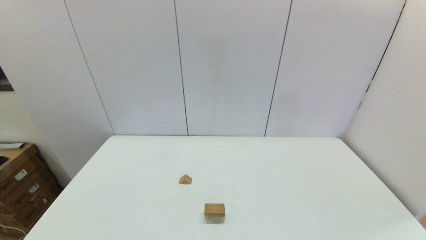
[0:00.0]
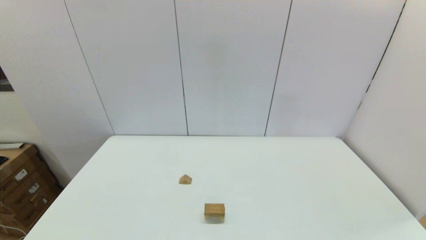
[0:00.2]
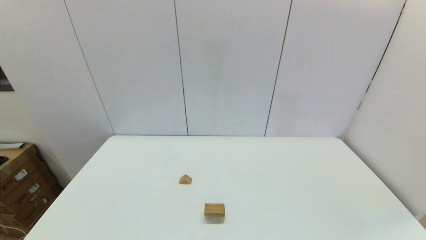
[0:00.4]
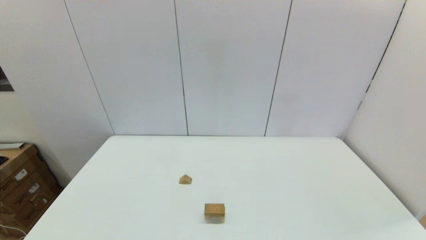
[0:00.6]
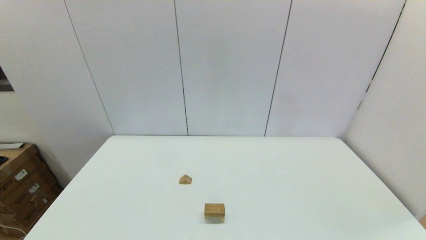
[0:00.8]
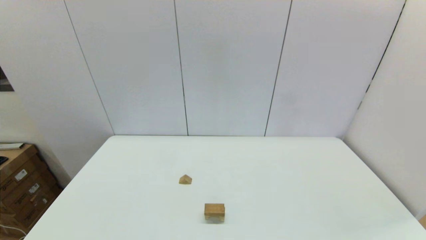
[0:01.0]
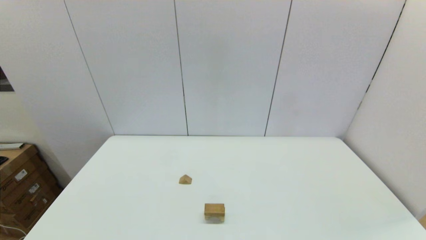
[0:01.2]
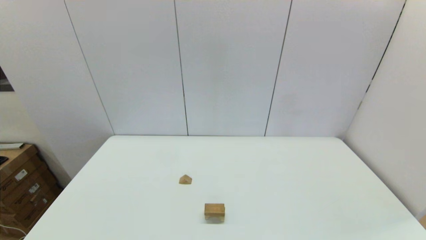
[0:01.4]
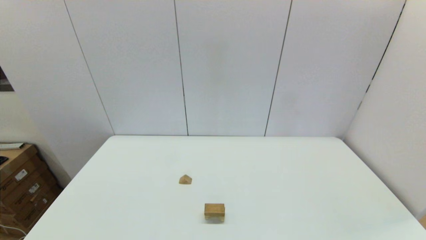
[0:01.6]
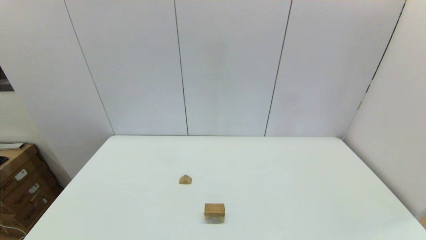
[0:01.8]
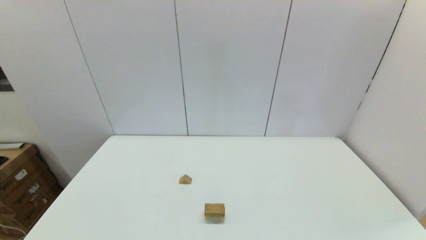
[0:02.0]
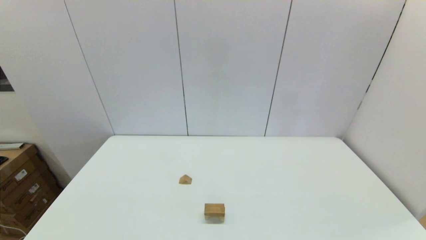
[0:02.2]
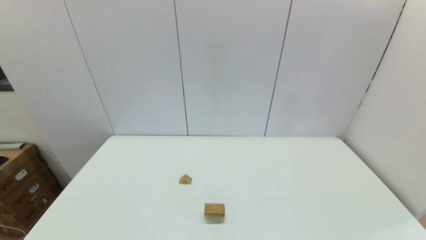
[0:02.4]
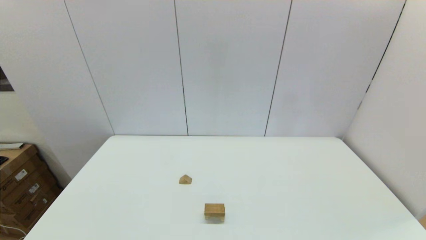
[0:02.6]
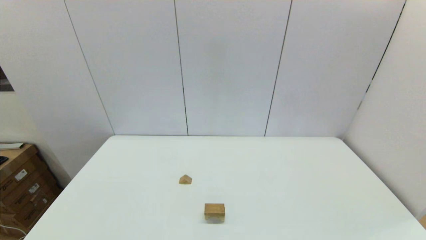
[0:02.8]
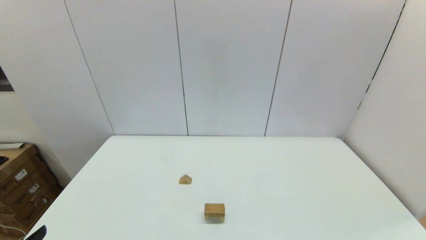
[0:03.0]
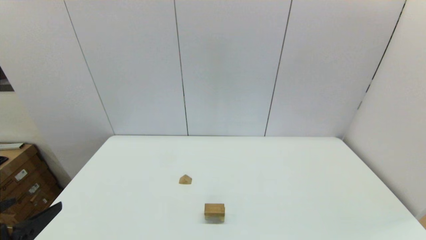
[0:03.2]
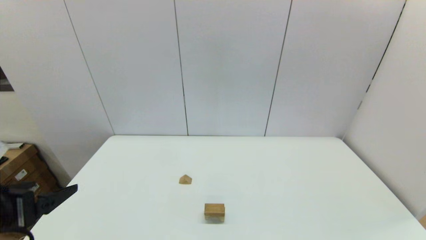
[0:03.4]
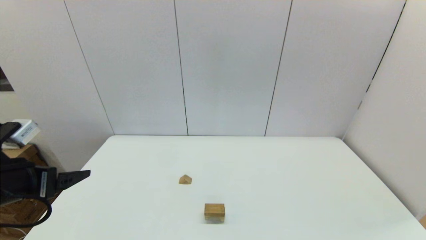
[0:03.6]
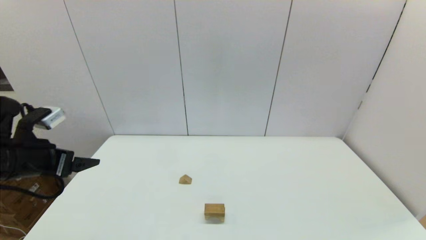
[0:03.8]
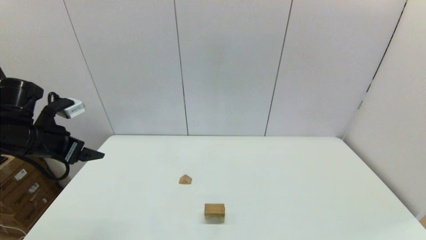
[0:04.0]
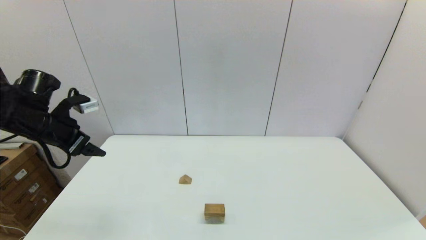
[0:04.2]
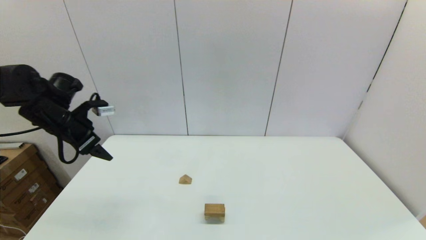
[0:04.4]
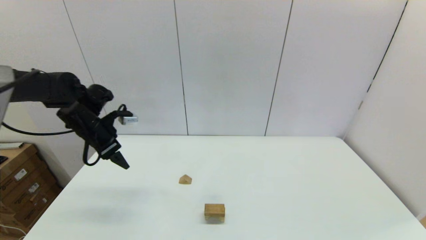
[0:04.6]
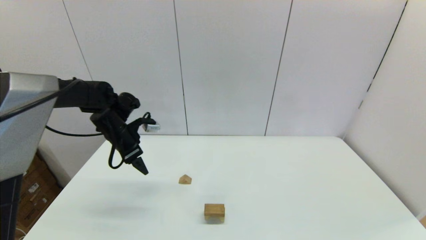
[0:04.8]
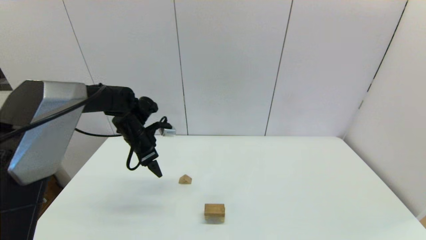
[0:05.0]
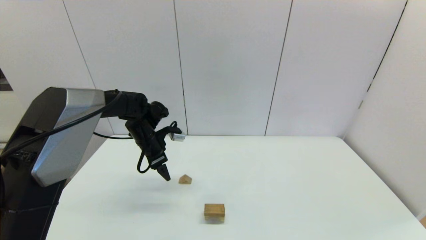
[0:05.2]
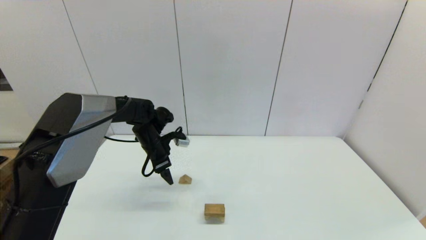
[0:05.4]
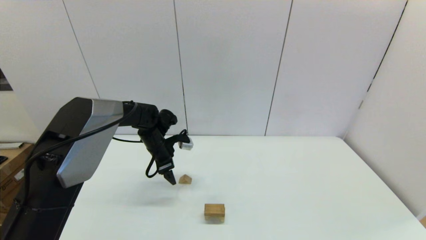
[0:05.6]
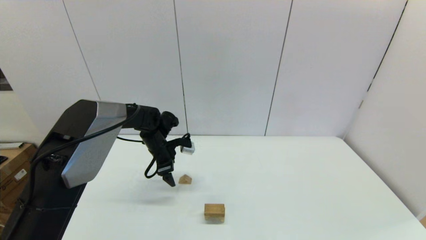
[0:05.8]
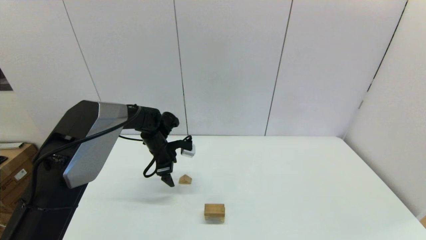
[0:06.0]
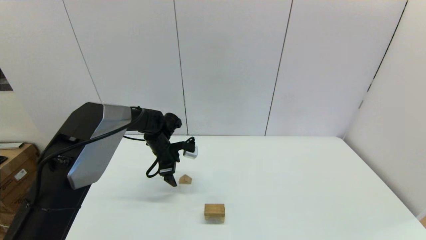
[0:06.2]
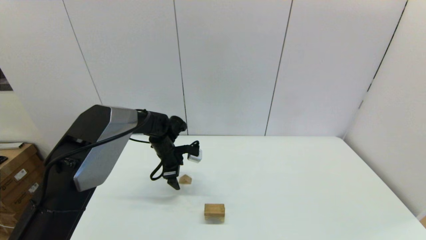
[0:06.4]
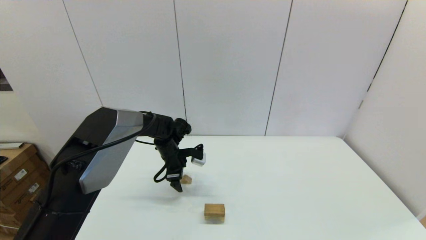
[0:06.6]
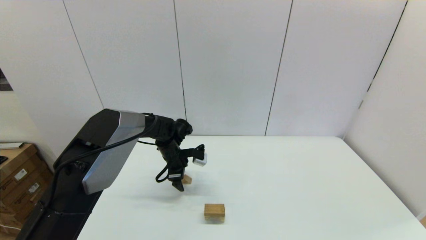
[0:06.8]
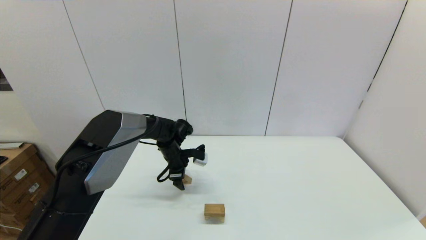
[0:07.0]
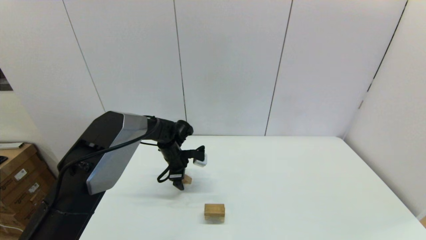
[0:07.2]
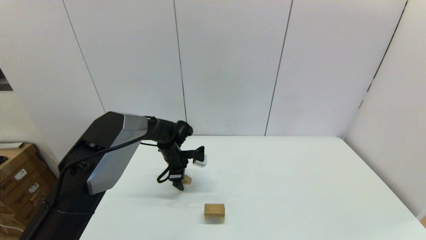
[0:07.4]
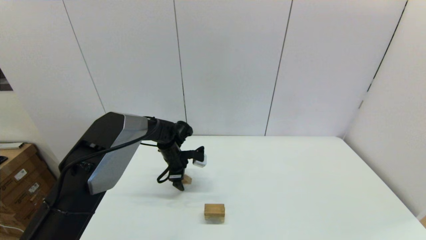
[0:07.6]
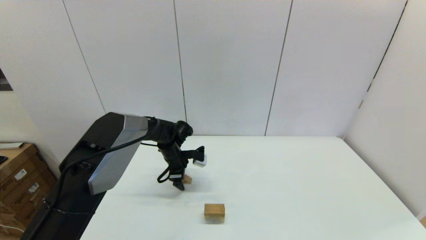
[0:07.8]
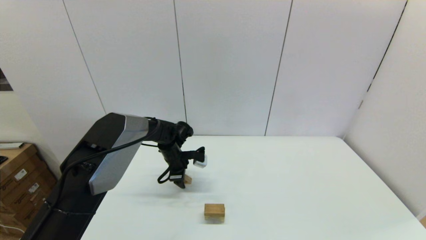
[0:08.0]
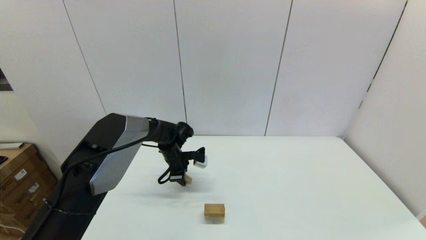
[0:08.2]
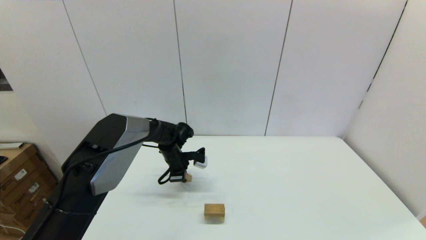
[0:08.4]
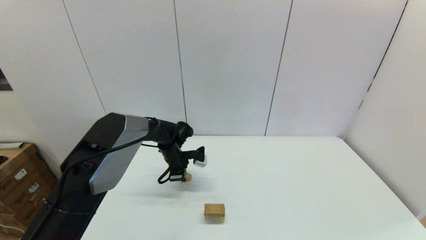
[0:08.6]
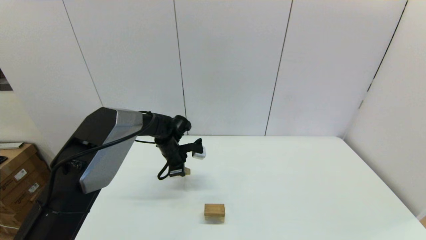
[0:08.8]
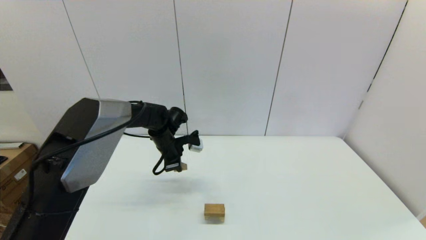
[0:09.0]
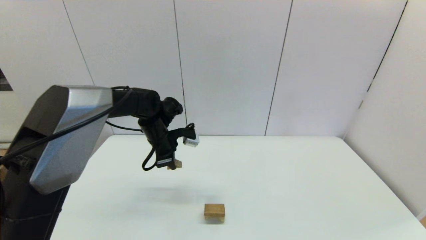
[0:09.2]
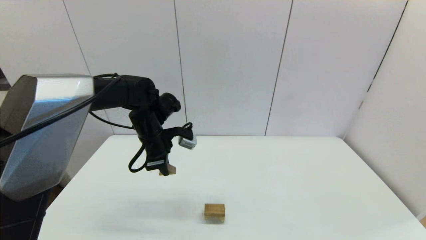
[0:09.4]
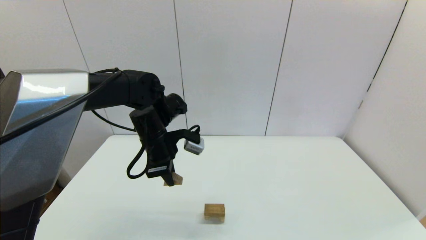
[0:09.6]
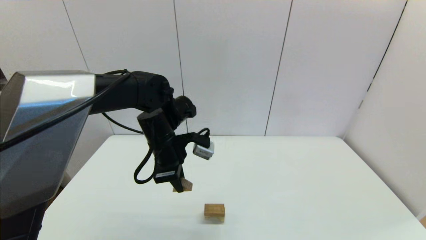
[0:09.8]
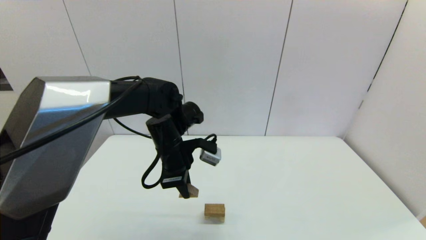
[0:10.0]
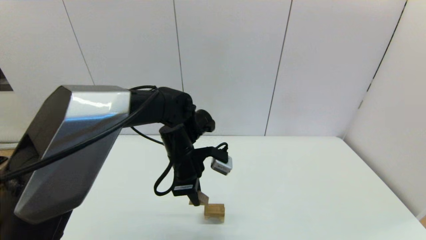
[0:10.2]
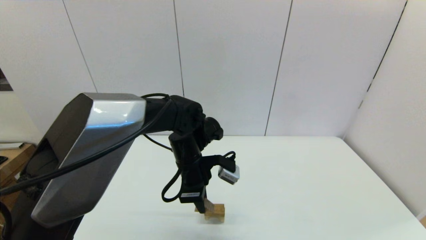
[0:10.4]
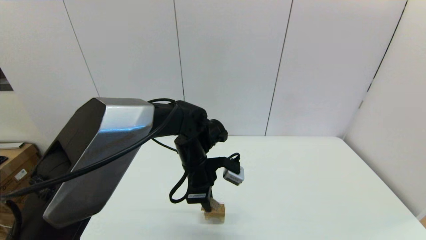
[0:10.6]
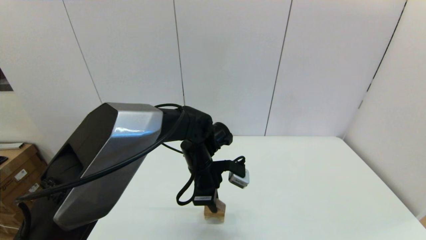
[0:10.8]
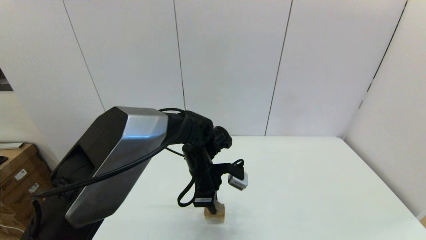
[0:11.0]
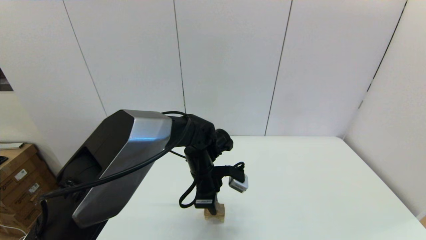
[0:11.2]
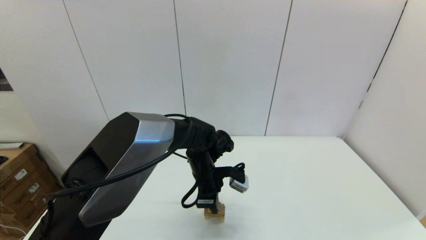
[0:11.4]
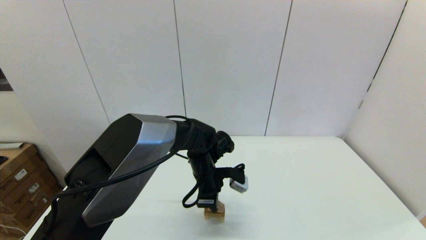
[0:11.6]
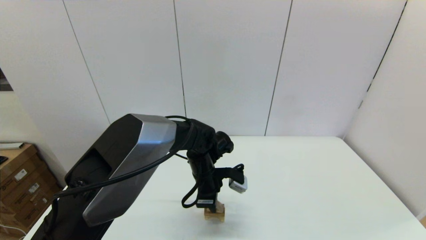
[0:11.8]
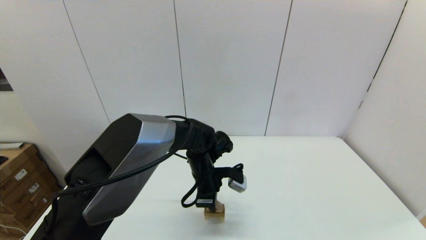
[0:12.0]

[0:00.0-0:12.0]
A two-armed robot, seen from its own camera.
Task of the whole recording: place the arched building blocks in the center of the table, set up the rectangular building blocks, and then set up the triangular building blocks.
Step, 0:00.0 to 0:08.4: Grasp the triangle-shaped block with the left gripper.
0:03.0 to 0:04.4: The left gripper is displaced forward by approximately 30 cm.
0:04.4 to 0:06.0: The left gripper heads to the right, downward and forward, covering roughly 25 cm.
0:06.0 to 0:07.6: The left gripper moves roughly 5 cm.
0:07.6 to 0:09.0: The left gripper travels upward by some 5 cm, and closes its fingers.
0:09.0 to 0:10.4: The left gripper travels backward and to the right by some 15 cm.
0:10.4 to 0:12.0: The left gripper travels downward by approximately 5 cm.

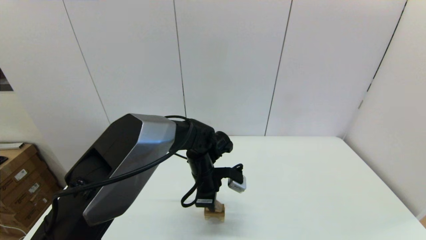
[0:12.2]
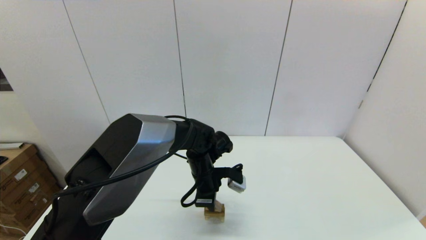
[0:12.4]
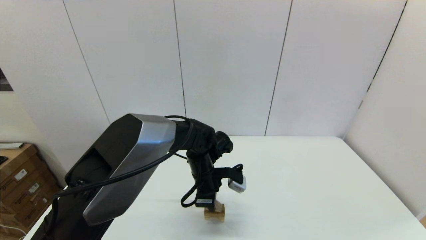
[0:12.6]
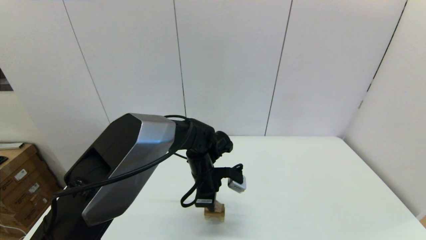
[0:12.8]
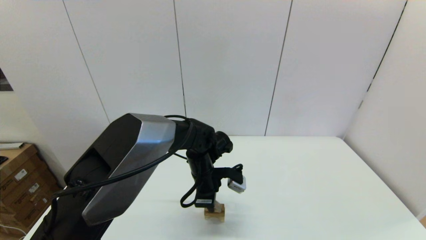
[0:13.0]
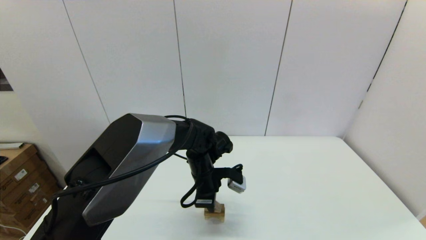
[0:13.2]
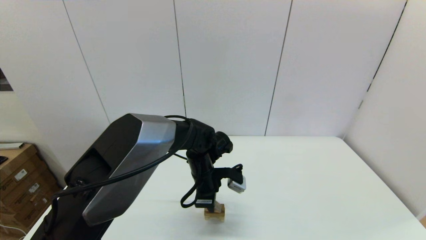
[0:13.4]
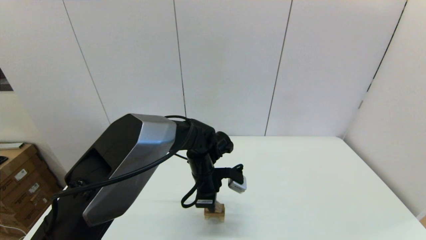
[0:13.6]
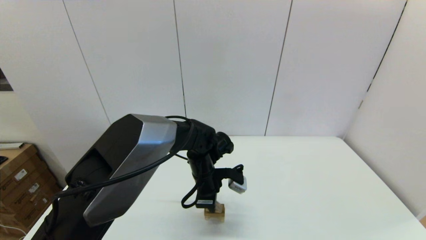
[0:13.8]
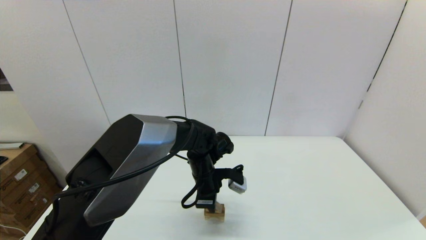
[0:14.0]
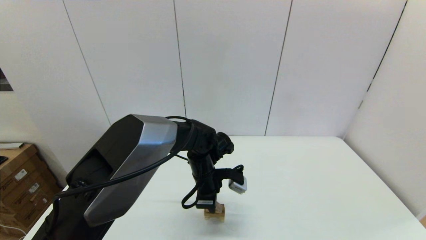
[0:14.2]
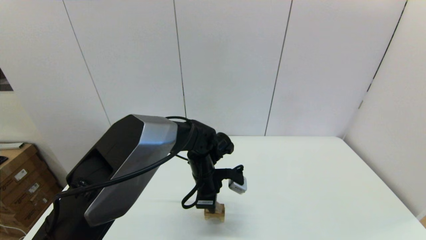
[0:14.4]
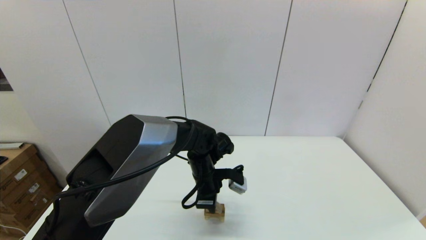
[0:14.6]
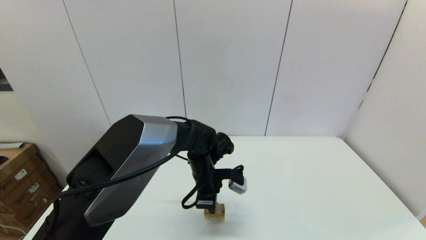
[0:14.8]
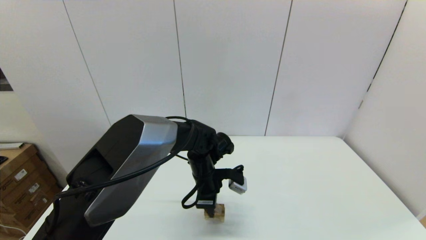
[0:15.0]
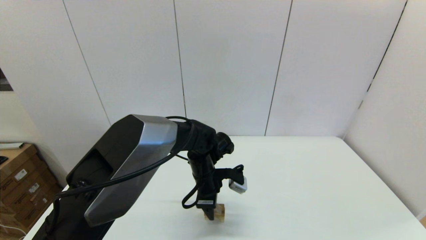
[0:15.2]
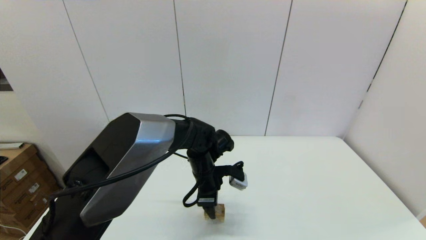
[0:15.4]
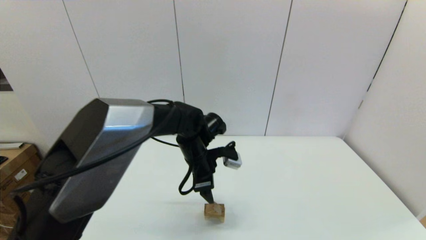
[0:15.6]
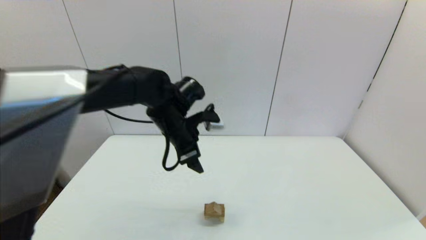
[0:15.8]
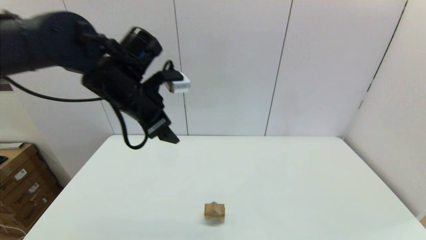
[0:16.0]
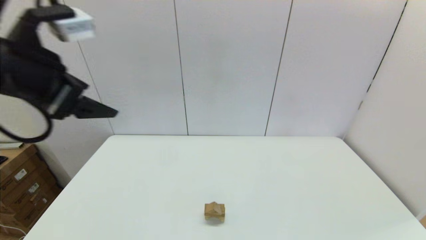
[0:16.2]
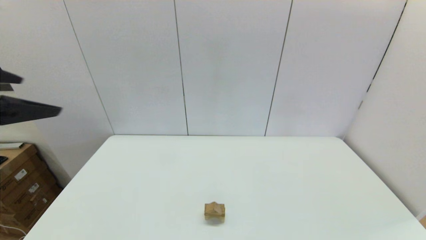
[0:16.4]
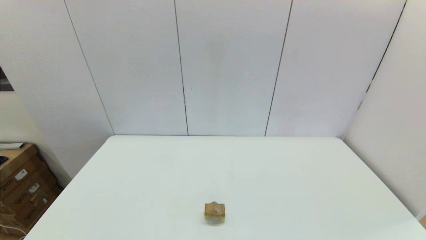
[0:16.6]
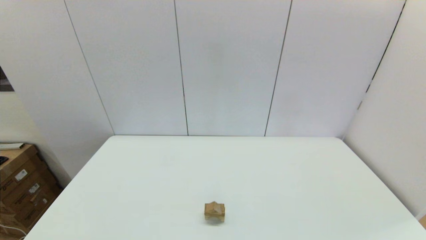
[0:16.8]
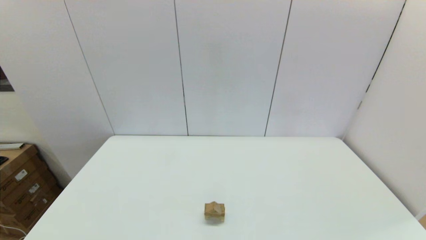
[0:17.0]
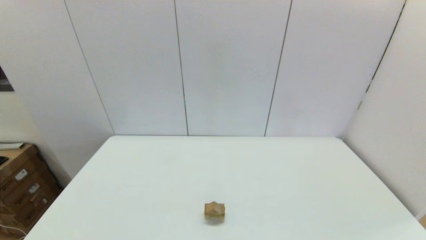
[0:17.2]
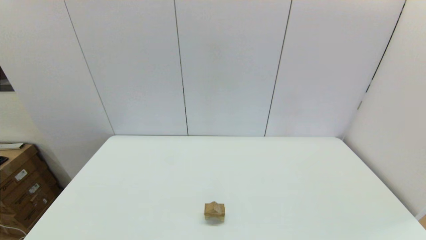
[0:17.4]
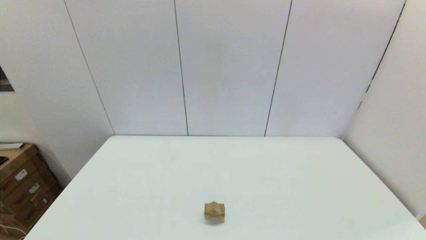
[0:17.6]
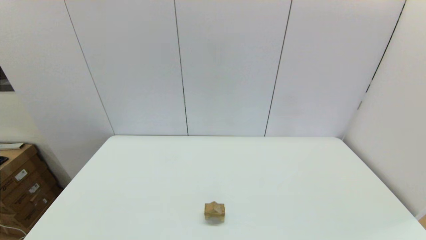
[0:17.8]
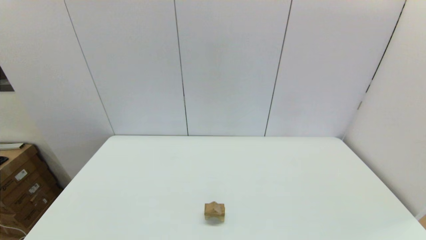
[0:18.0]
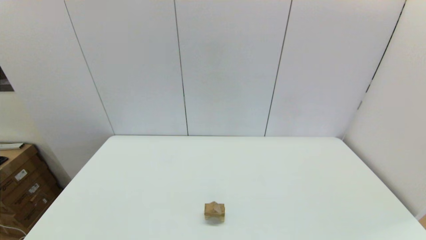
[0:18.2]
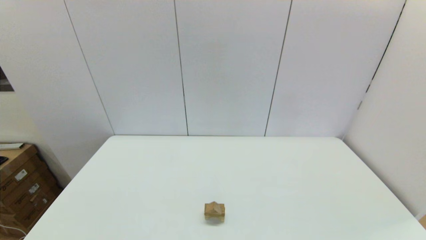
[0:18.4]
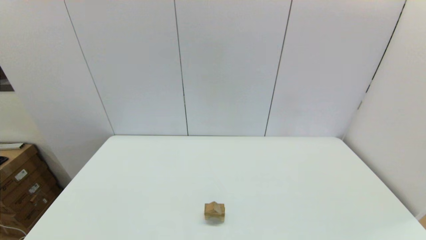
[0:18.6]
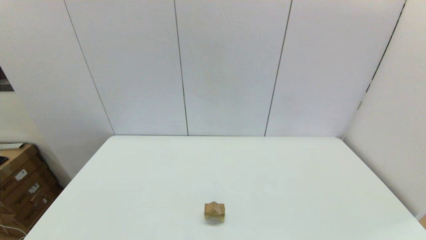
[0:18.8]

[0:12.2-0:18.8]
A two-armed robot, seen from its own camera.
Task of the whole recording: place the arched building blocks in the center of the table, set up the rectangular building blocks, and then set up the triangular building blocks.
0:12.2 to 0:13.8: The two grippers keep their place.
0:13.8 to 0:15.4: The left gripper opens its fingers.
0:15.4 to 0:17.2: The left gripper heads backward and to the left, covering roughly 50 cm.
